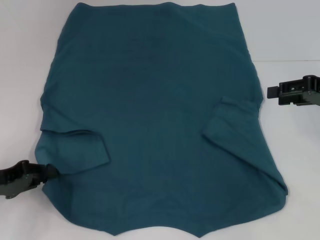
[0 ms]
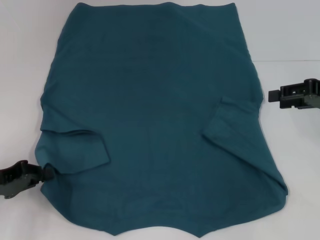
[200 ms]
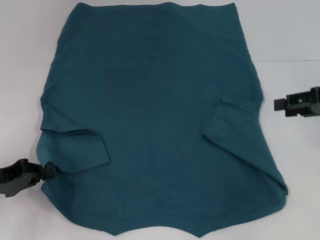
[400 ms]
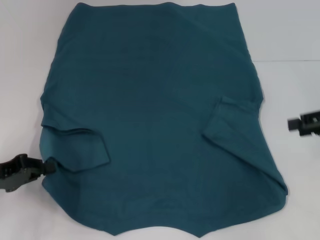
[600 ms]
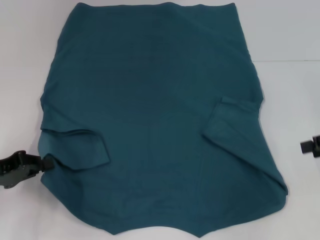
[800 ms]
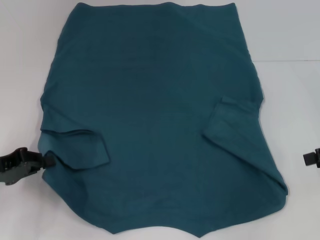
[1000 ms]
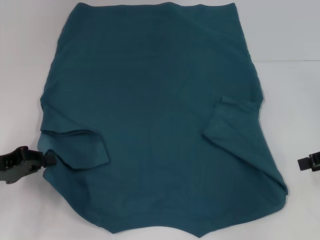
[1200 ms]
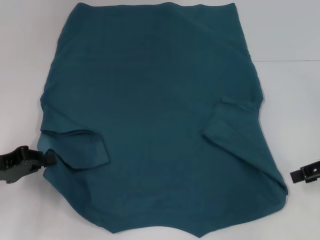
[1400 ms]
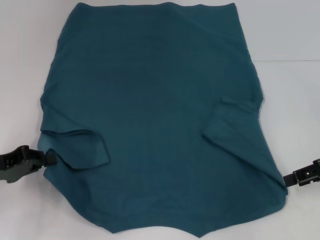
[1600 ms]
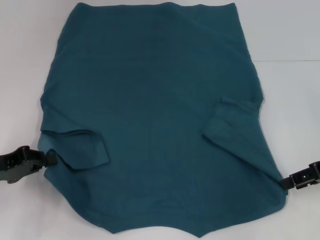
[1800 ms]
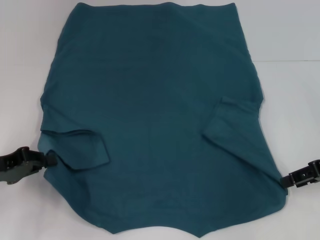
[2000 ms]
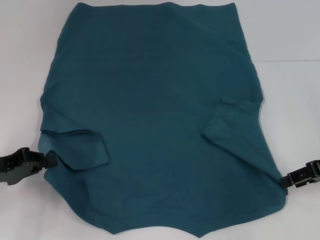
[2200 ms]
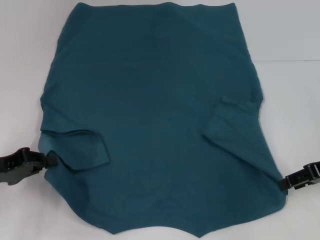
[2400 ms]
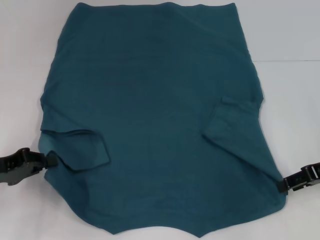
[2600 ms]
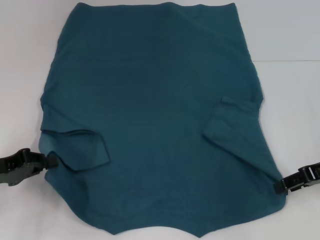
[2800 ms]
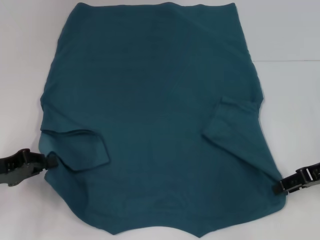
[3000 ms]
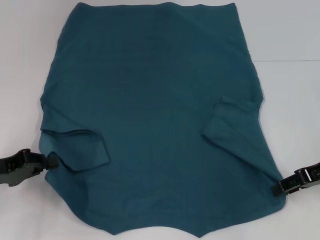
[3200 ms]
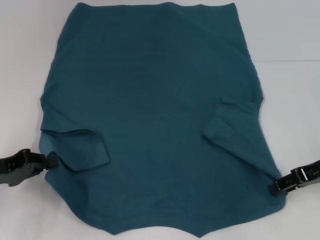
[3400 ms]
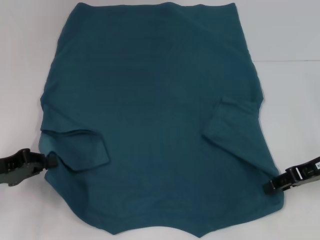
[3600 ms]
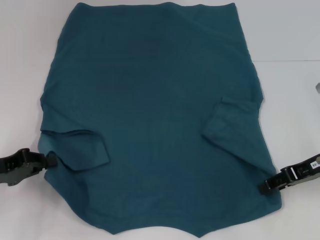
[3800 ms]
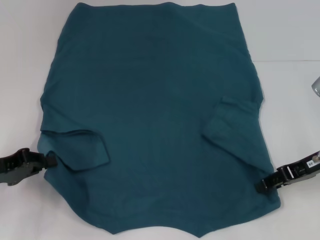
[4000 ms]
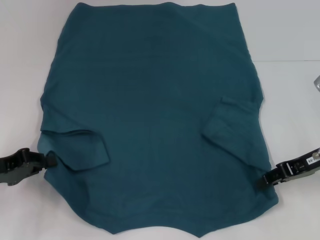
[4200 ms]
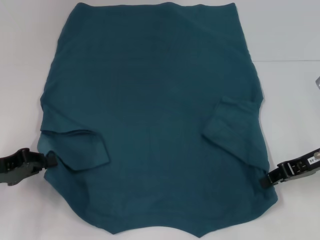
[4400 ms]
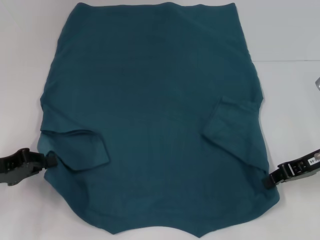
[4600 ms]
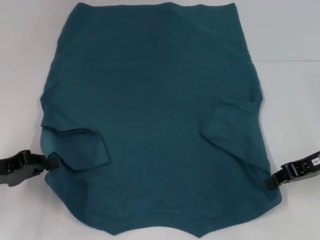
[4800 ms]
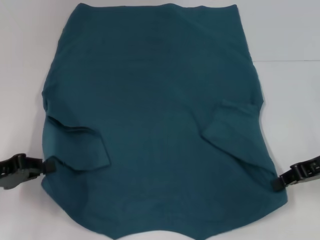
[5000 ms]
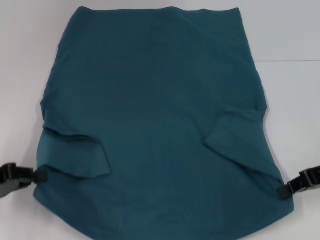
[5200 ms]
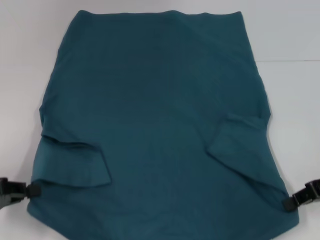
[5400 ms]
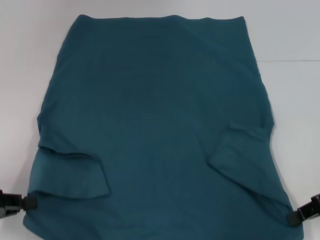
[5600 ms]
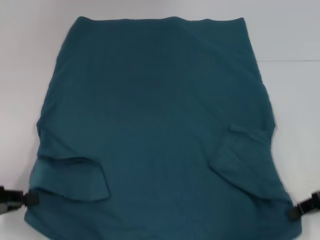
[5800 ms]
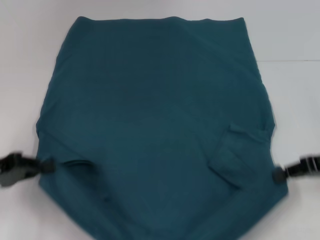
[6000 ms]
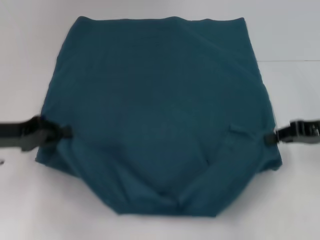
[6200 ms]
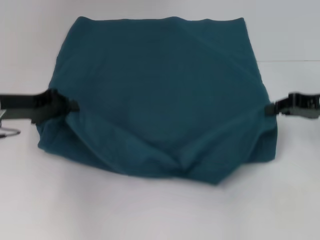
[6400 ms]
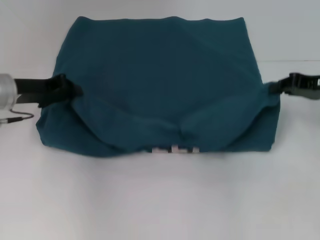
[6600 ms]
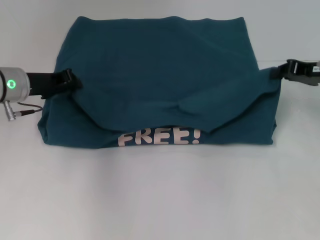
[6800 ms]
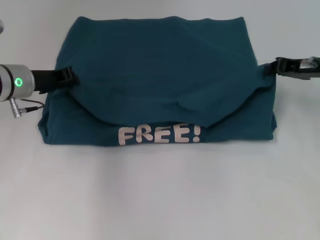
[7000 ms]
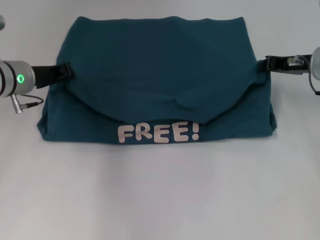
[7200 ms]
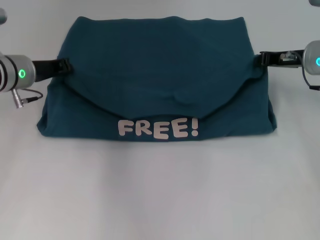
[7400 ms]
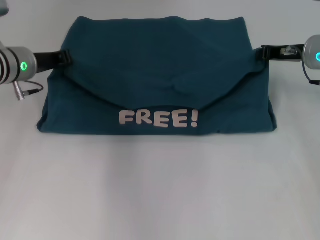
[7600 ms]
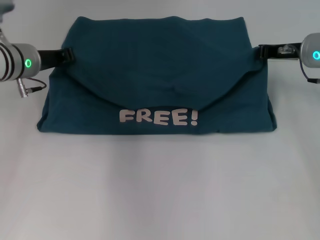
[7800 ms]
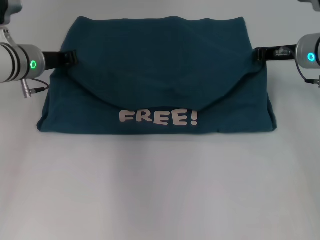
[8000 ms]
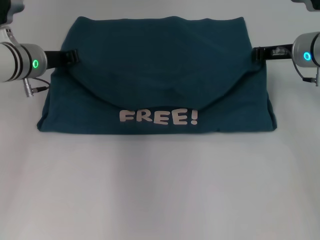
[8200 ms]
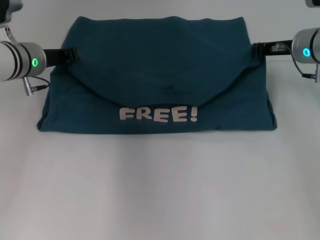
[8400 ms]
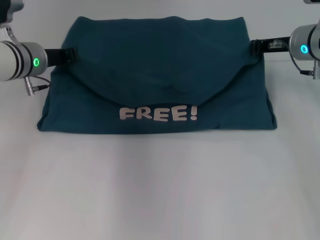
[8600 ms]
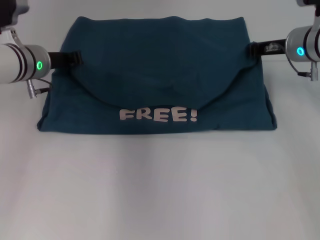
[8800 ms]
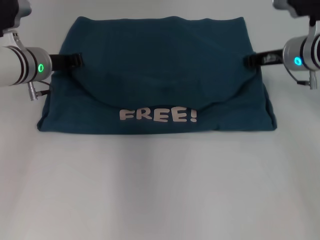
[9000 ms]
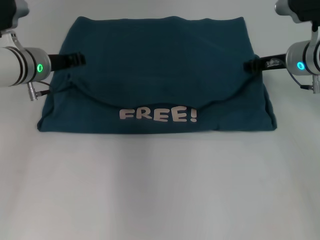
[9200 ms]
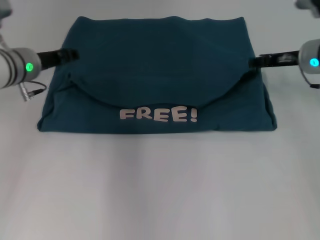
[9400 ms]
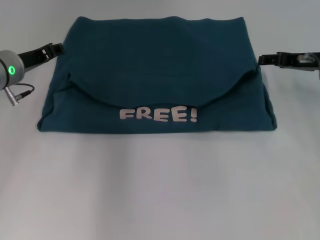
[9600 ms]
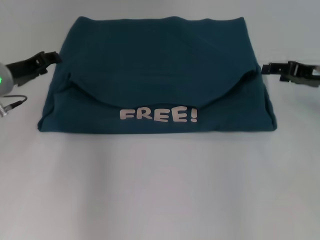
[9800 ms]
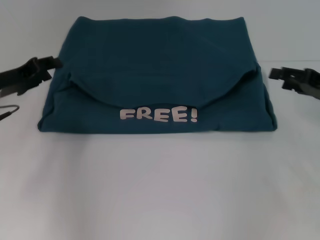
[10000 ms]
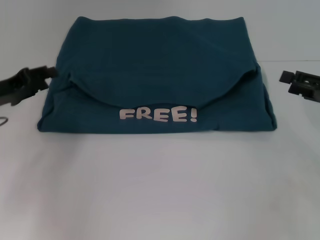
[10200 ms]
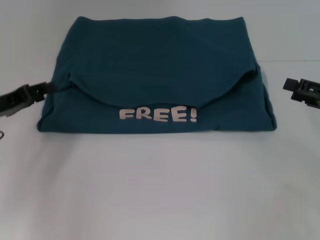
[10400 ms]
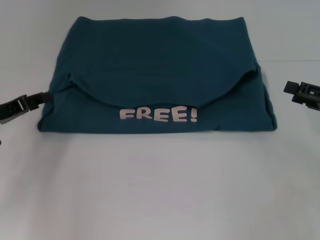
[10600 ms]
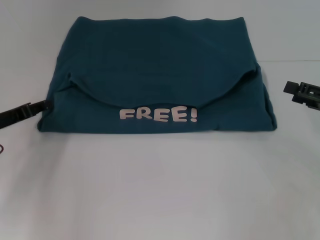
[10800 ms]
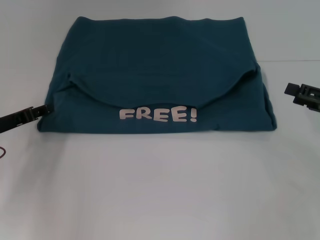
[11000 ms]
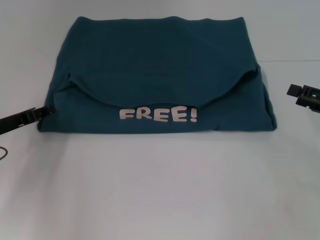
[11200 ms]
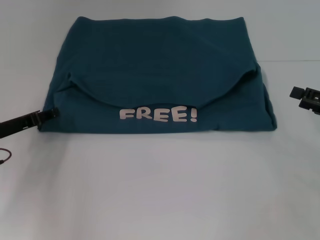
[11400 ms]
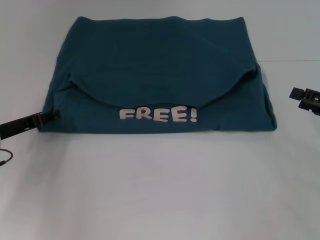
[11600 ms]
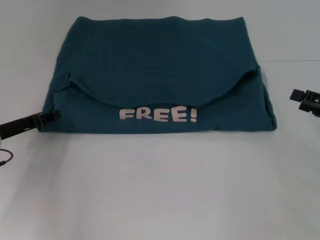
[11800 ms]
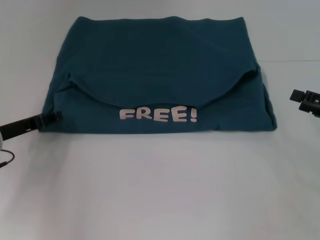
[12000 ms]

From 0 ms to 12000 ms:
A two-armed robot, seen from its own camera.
Step, from 400 ms to 4800 ms: Grab the bottom right corner with your right hand.
Step, from 5000 ms to 9400 ms: Fold the clothes to the left.
Step, from 5000 ms to 9400 ms: Fold the clothes to the right.
From 0 ms to 1600 ms: The right gripper ends up roughly 5 cm from where it was, while the left gripper closes its fingers.
From 1600 ms to 4400 ms: The grippers move only a little.
From 6000 ms to 7600 ms: The right gripper goes approximately 15 cm forward and to the left, while the left gripper travels forward and to the right by about 20 cm.
From 7600 ms to 9000 ms: The grippers stay close to where they were, moving slightly.
From 9000 ms to 10400 ms: The left gripper moves backward and to the left, about 15 cm, and opens up. Meanwhile the right gripper heads backward and to the right, covering about 20 cm, and opens.
From 10400 ms to 12000 ms: The grippers make only small movements.

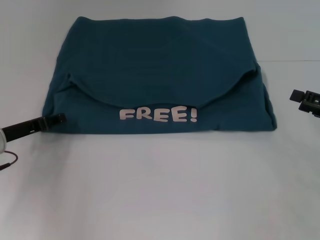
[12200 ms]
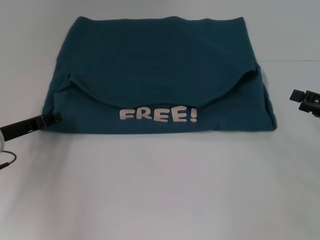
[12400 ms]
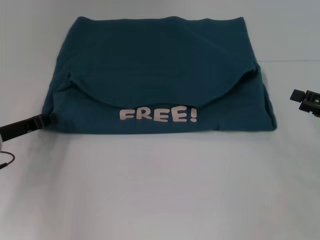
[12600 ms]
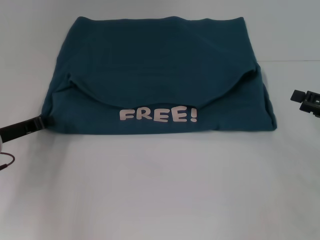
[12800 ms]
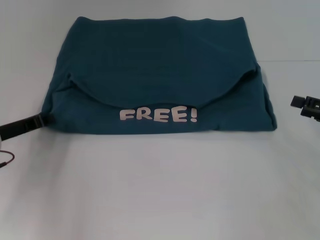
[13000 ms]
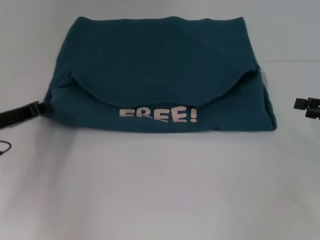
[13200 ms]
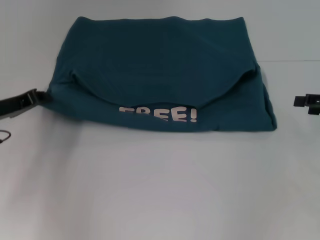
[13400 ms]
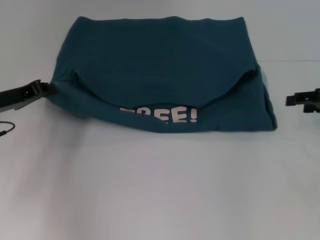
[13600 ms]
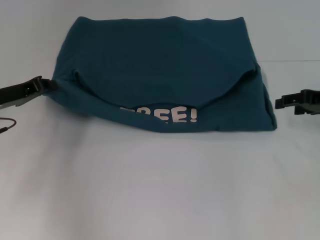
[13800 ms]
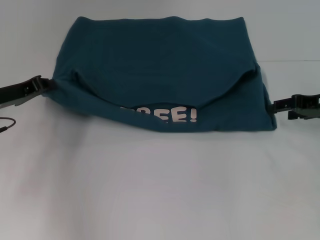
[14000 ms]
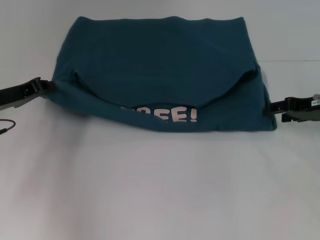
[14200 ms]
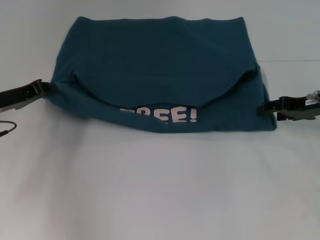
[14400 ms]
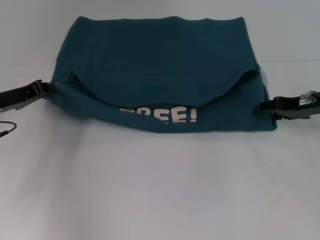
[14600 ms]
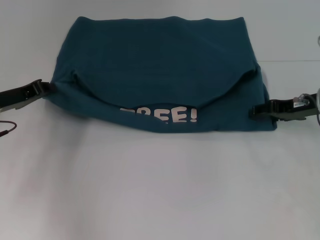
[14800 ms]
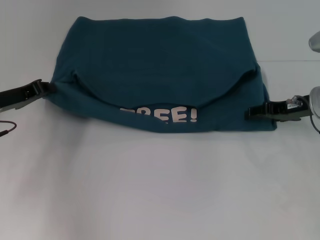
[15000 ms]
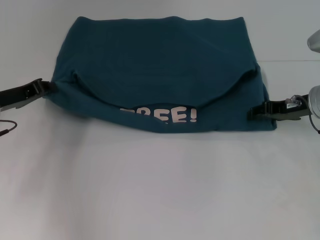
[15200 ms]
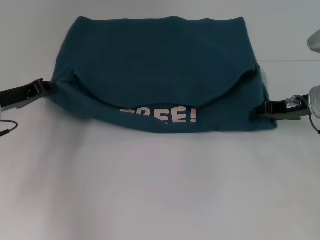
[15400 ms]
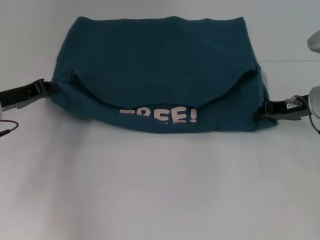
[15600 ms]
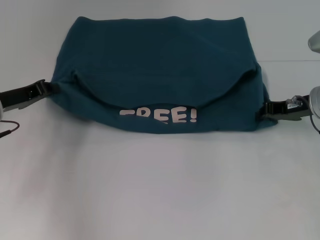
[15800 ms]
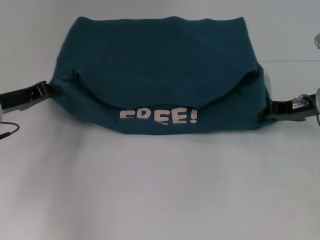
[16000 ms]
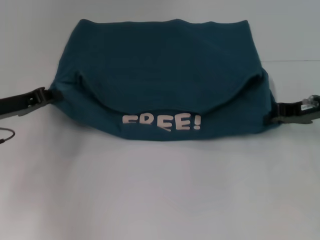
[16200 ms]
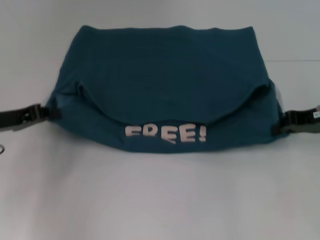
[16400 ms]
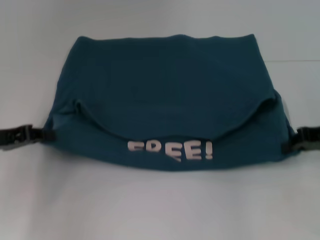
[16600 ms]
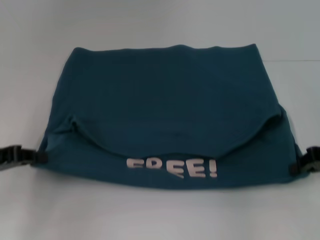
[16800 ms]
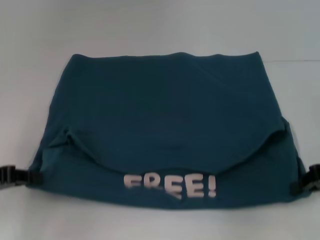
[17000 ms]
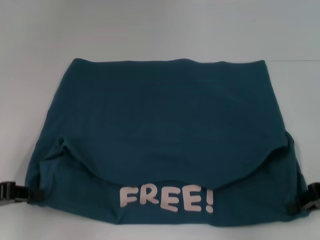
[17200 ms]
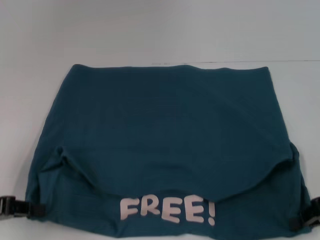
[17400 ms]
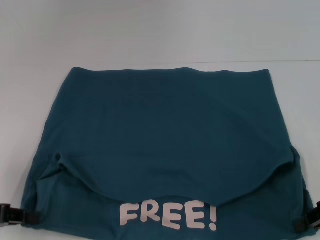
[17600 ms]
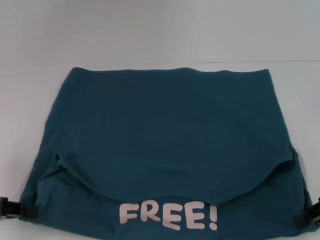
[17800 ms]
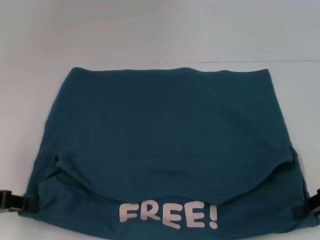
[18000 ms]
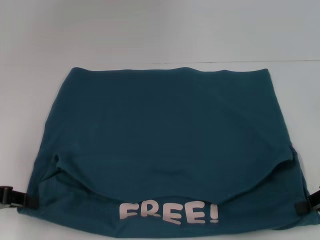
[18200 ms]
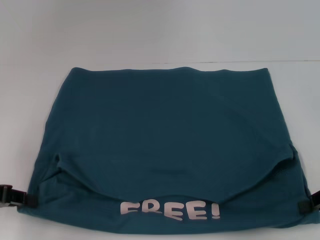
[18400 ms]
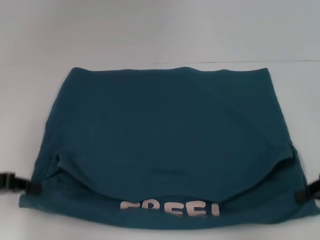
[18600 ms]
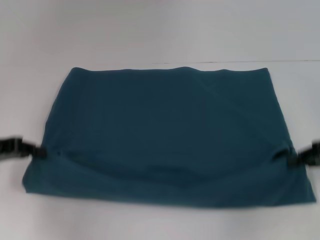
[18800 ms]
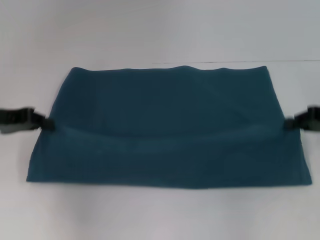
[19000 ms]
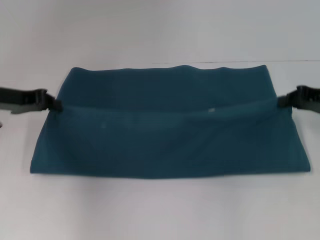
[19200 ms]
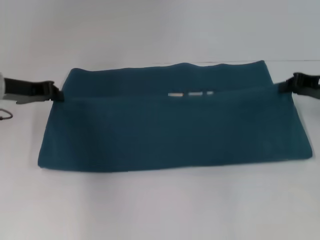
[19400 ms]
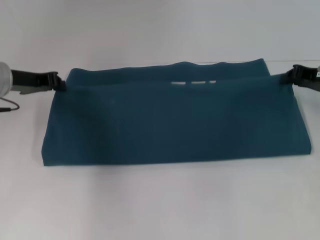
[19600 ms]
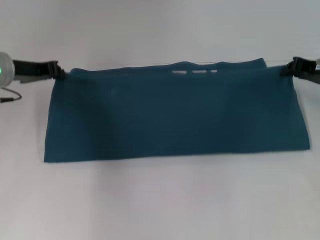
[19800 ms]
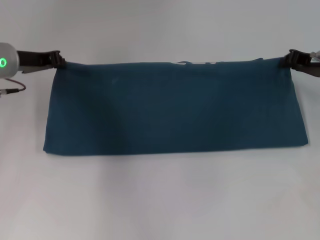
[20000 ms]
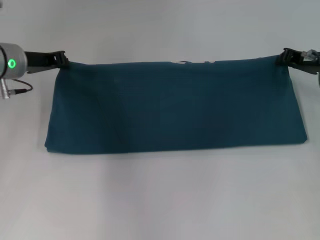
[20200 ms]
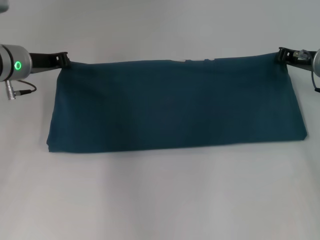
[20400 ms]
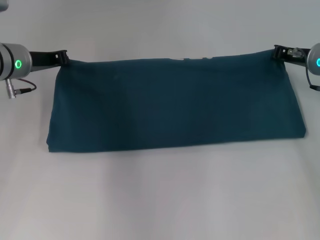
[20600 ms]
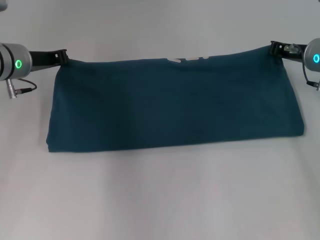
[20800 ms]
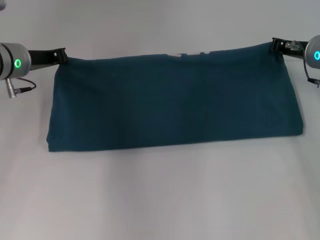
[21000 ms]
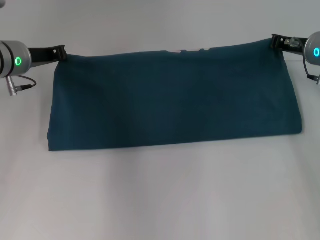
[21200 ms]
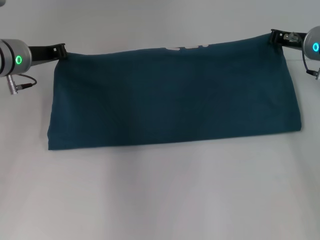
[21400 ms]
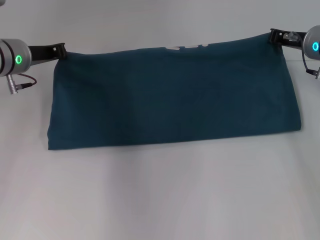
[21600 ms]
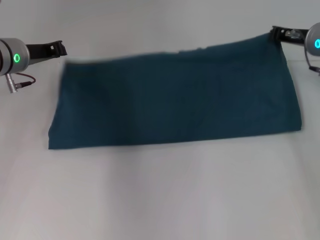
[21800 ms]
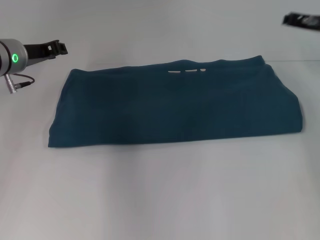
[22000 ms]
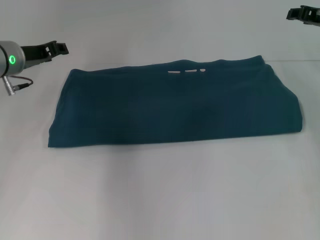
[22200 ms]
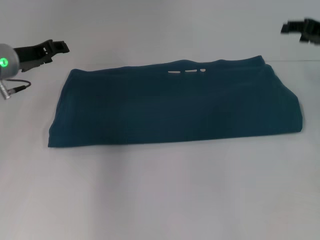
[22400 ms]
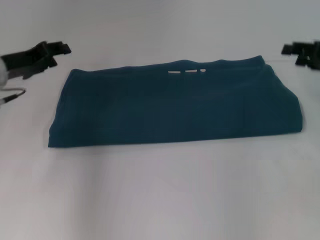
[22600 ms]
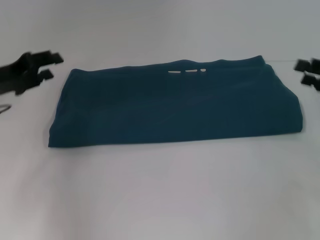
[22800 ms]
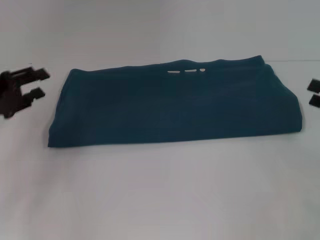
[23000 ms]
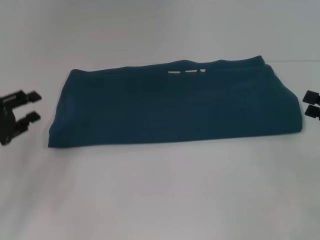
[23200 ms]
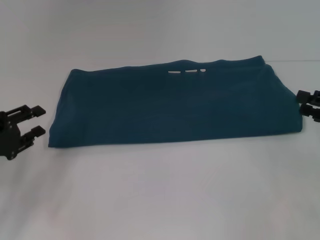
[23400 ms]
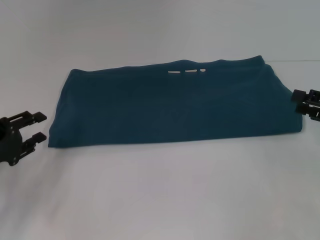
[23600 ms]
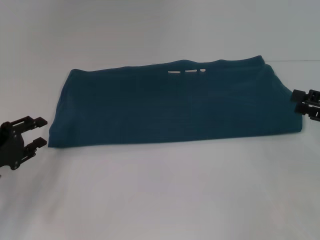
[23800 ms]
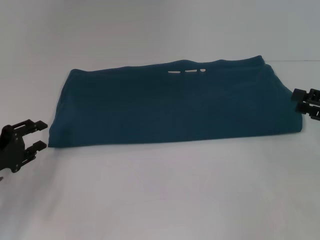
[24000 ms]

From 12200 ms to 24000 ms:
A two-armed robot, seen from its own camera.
Step, from 12200 ms to 17200 ms: Pull the clothes with your left hand.
Step, from 12200 ms to 17200 ms: Pull the clothes with your right hand.
Step, from 17400 ms to 21800 ms: Fold the clothes to the right.
From 12200 ms to 13600 ms: The right gripper travels forward by approximately 5 cm; the left gripper shifts by about 5 cm, and closes up.
From 13600 ms to 15200 ms: The right gripper goes some 10 cm to the left.
From 15200 ms to 16600 ms: The left gripper shifts some 5 cm backward. Meanwhile the right gripper heads to the right, covering about 5 cm, and closes up.
From 16600 ms to 18200 ms: Both grippers move backward, approximately 5 cm.
From 18200 ms to 19600 ms: The right gripper goes some 15 cm forward. The left gripper heads forward and to the right, covering roughly 15 cm.
From 19600 ms to 21000 ms: The right gripper goes some 5 cm to the left.
From 21000 ms to 22600 ms: The left gripper moves some 5 cm, and opens its fingers. Meanwhile the right gripper travels to the right and backward by some 10 cm, and opens.
From 22600 ms to 24000 ms: The left gripper shifts roughly 15 cm backward and downward, while the right gripper goes approximately 10 cm backward.
